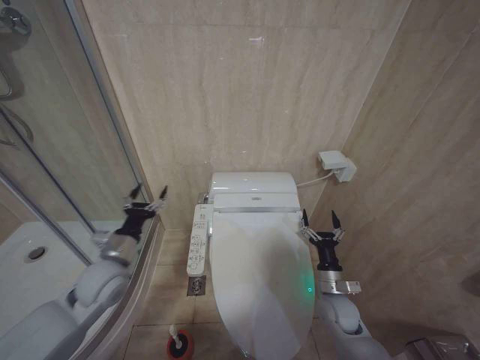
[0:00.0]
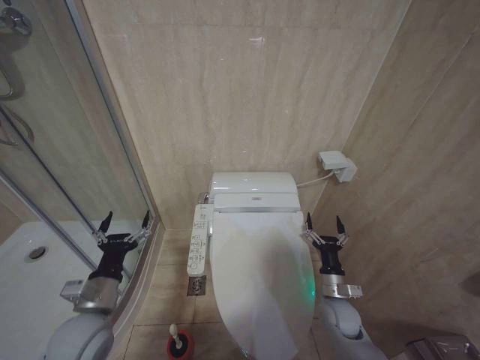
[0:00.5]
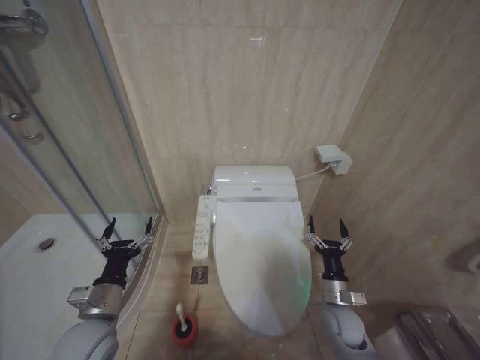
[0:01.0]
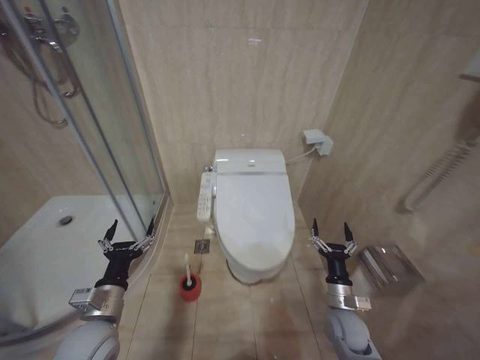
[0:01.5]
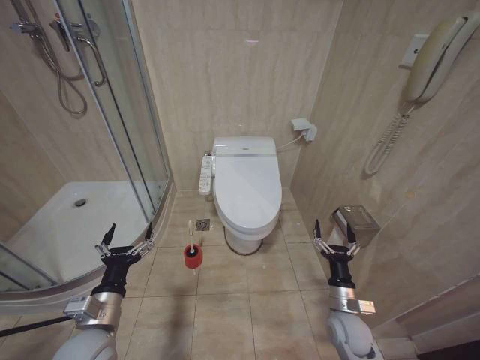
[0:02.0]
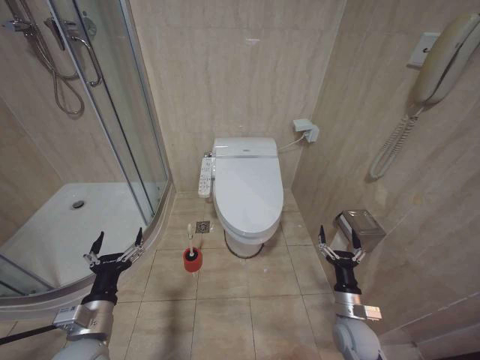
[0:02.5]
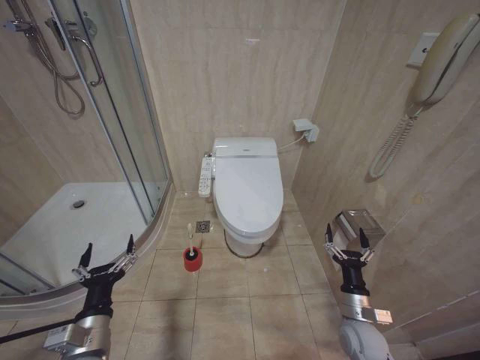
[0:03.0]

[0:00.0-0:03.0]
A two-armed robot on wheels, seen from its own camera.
Task of the whole recording: Open the toilet lid, clean the toilet bowl with a toilet brush, close the toilet lid, and flush.
0:00.0 to 0:01.5: The left gripper is displaced backward by approximately 10 cm.
0:01.5 to 0:03.0: The left gripper changes place by about 5 cm.

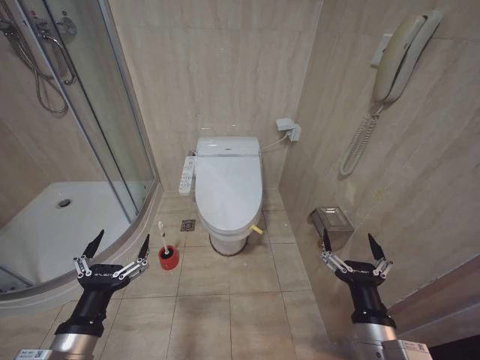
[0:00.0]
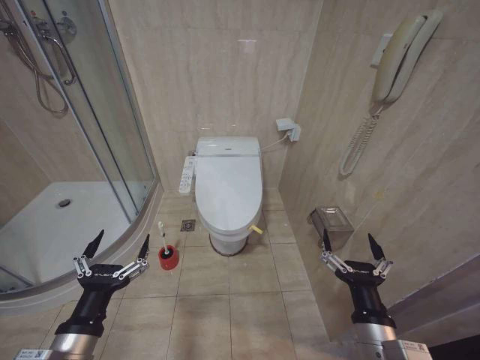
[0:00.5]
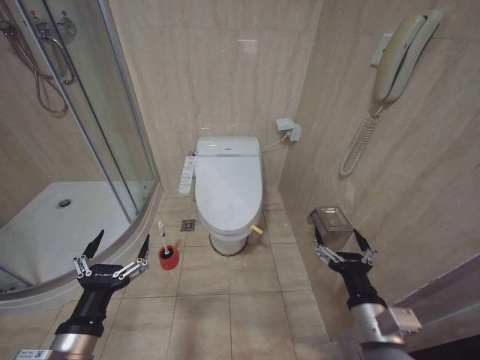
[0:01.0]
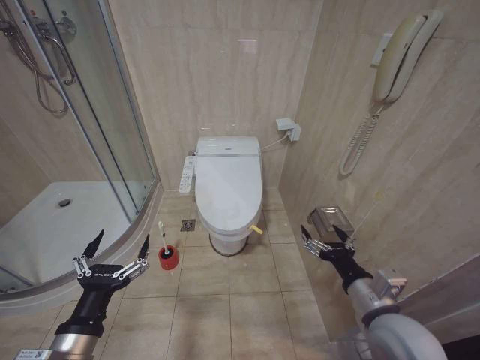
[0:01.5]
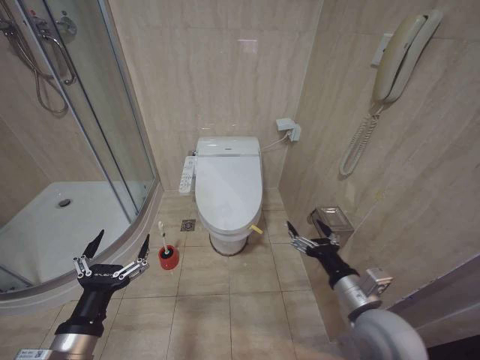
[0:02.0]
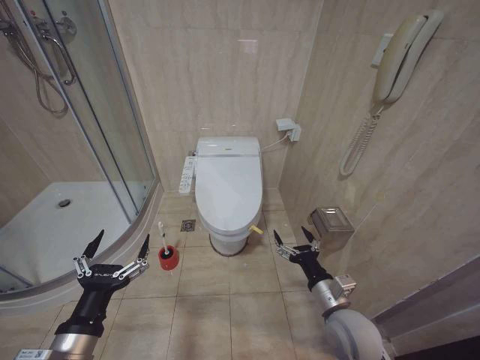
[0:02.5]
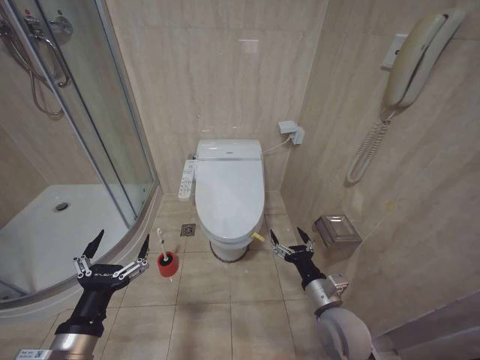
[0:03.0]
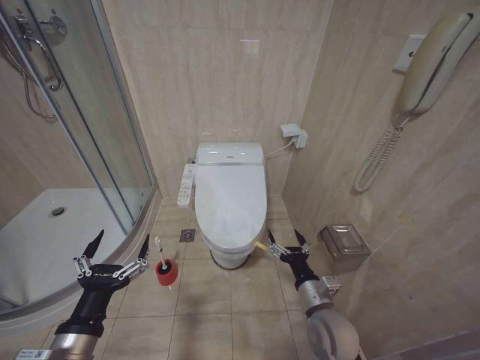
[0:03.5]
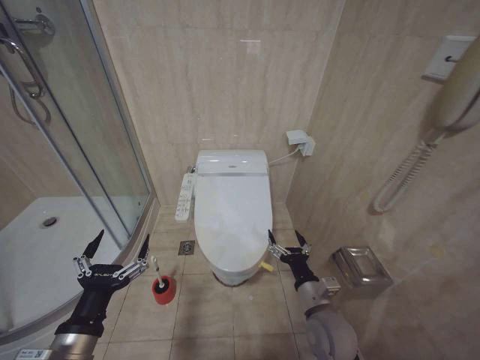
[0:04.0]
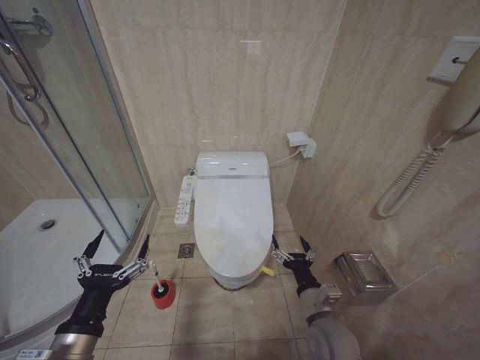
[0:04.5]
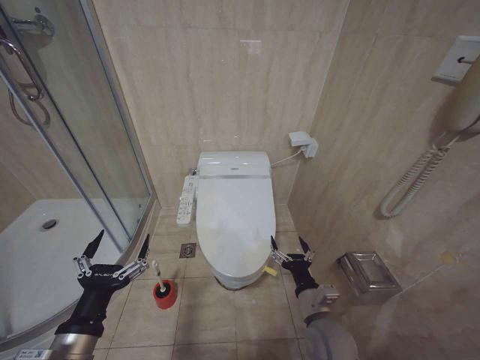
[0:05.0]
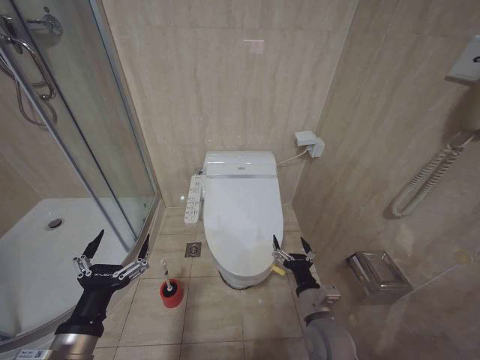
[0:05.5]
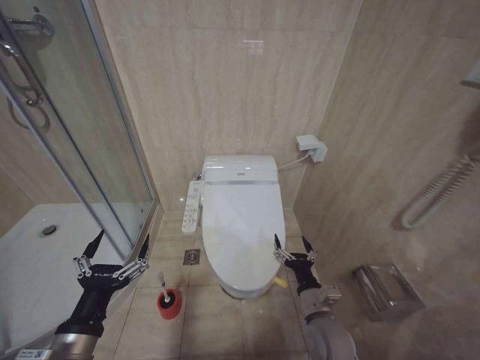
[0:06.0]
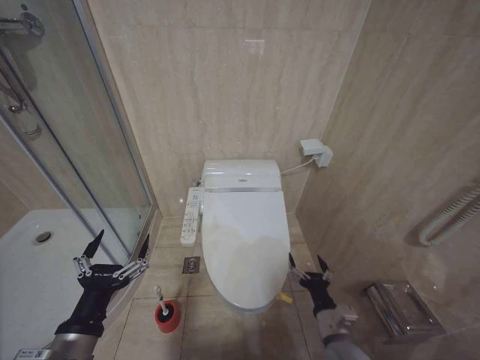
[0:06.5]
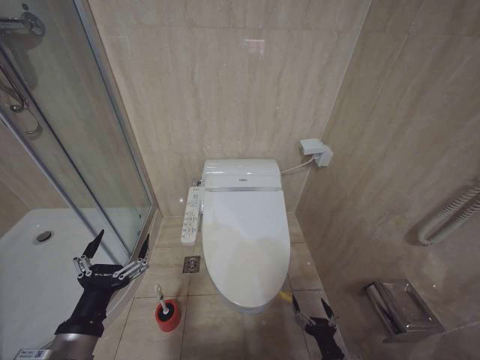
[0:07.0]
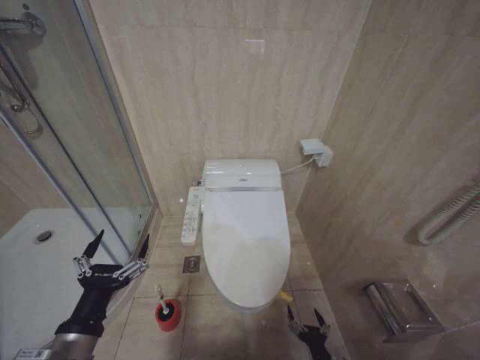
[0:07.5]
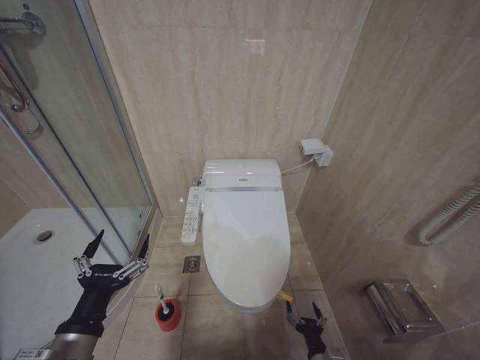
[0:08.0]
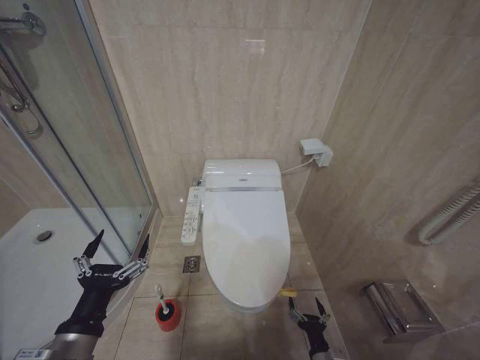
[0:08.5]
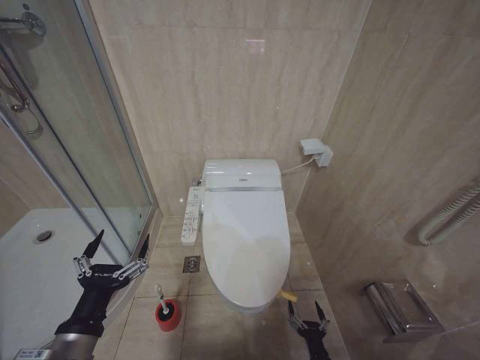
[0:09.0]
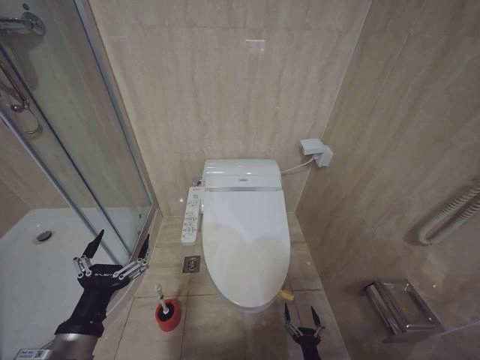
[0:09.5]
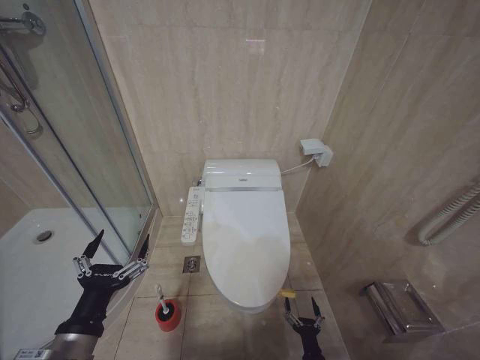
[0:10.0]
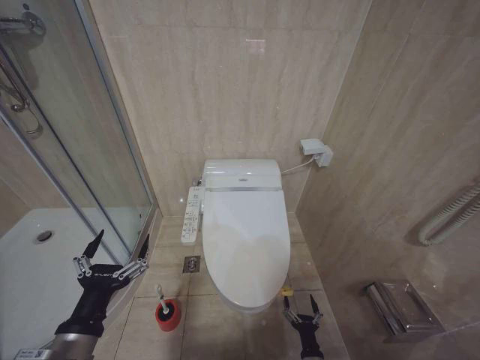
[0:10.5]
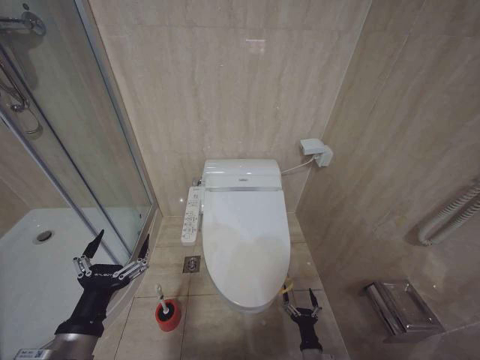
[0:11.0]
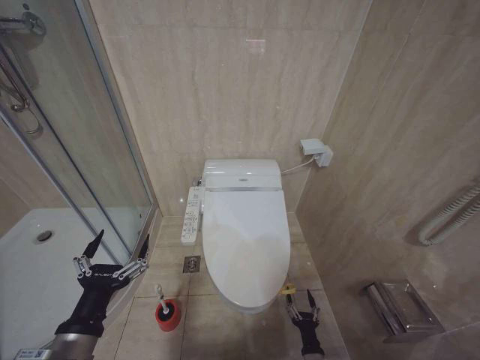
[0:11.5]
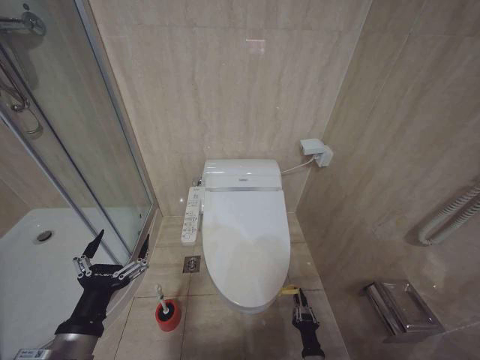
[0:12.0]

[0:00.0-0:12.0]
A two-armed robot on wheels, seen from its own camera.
Task of the whole recording: Open the toilet lid, clean the toilet bowl with a toilet brush, close the toilet lid, and flush.
0:02.0 to 0:04.0: The right gripper moves downward and to the left, about 10 cm.
0:04.0 to 0:06.0: The grippers move only a little.
0:06.0 to 0:08.0: The right gripper moves downward and backward, about 20 cm.

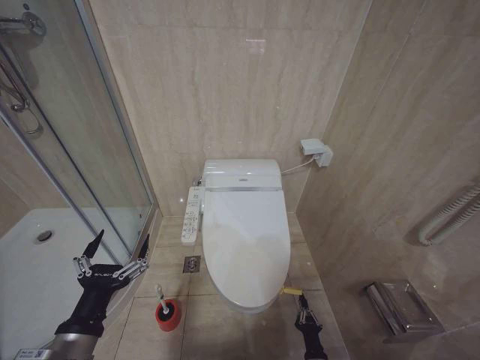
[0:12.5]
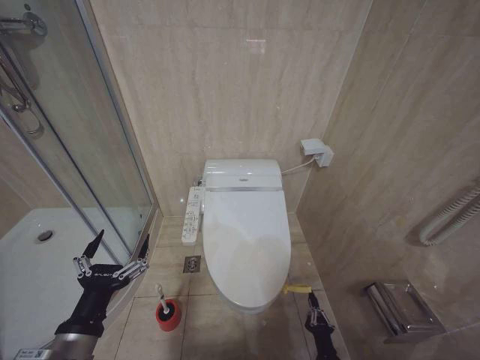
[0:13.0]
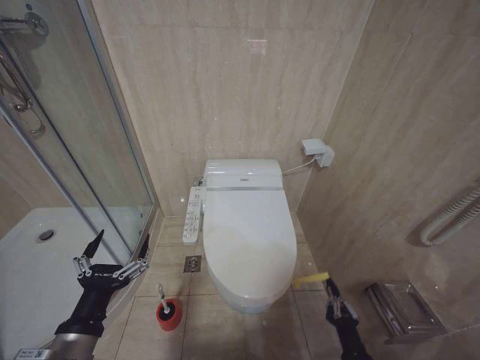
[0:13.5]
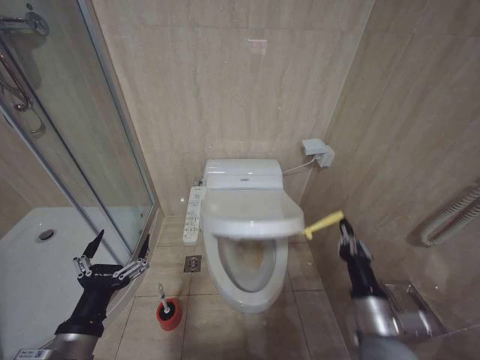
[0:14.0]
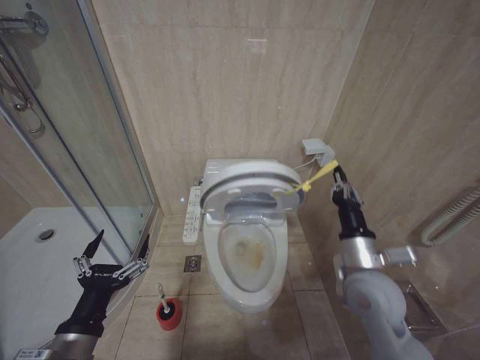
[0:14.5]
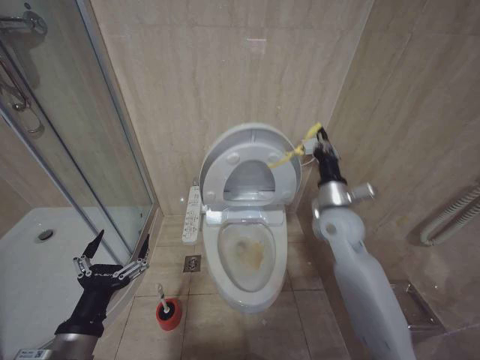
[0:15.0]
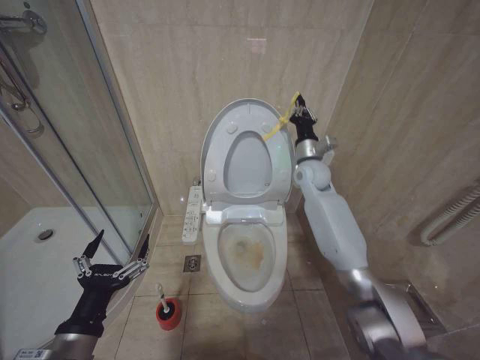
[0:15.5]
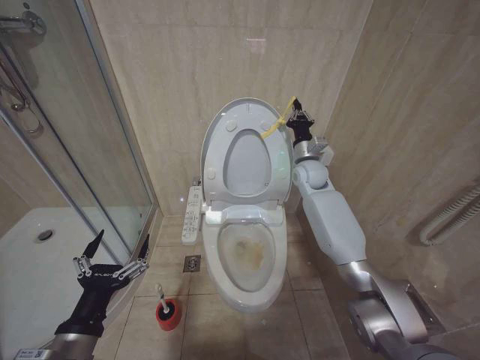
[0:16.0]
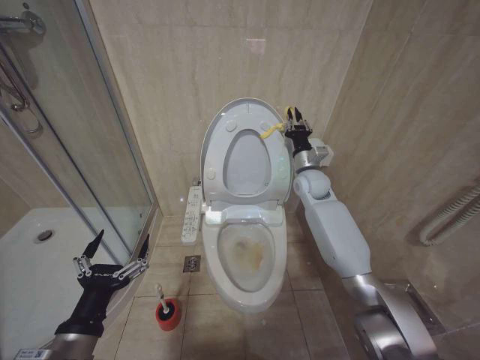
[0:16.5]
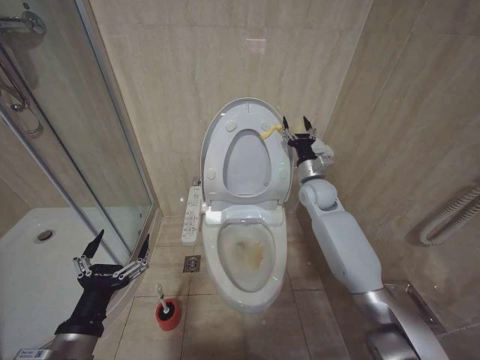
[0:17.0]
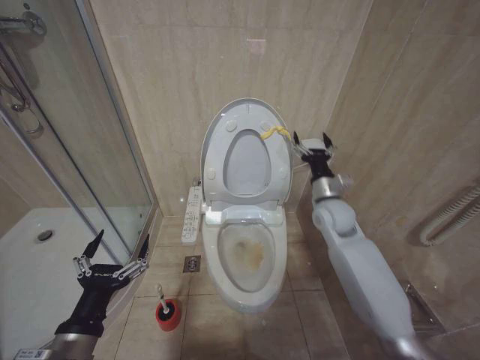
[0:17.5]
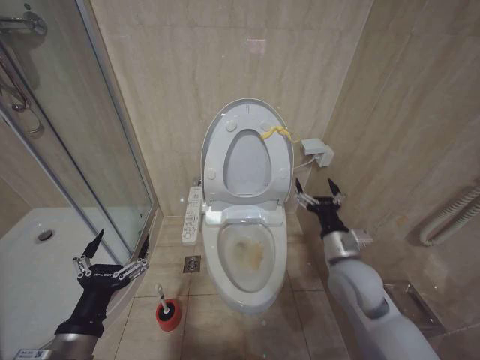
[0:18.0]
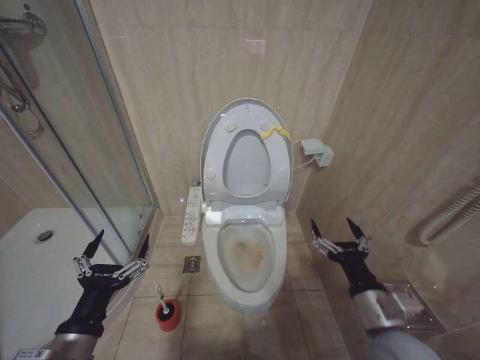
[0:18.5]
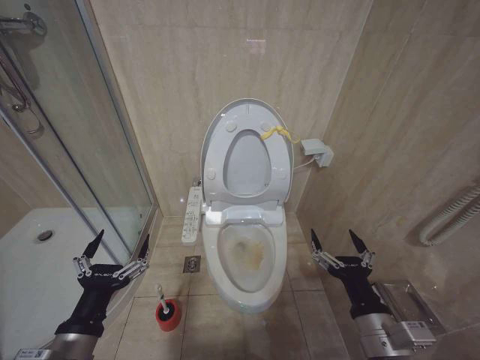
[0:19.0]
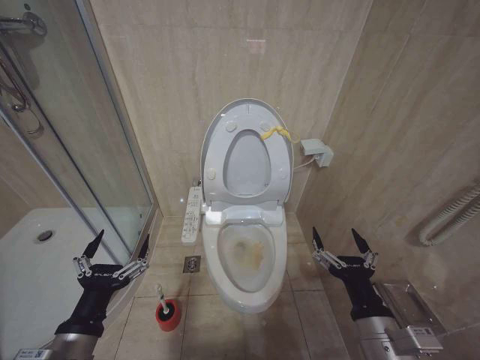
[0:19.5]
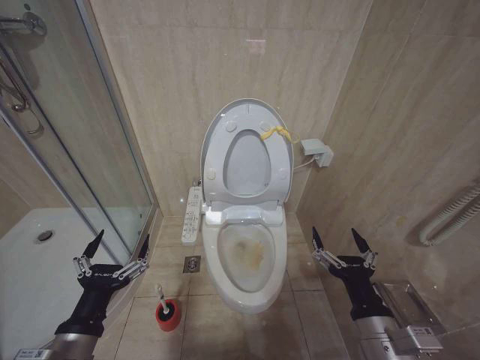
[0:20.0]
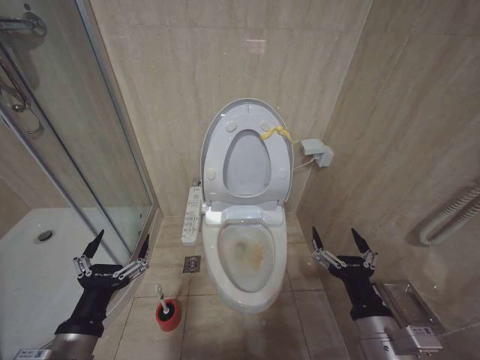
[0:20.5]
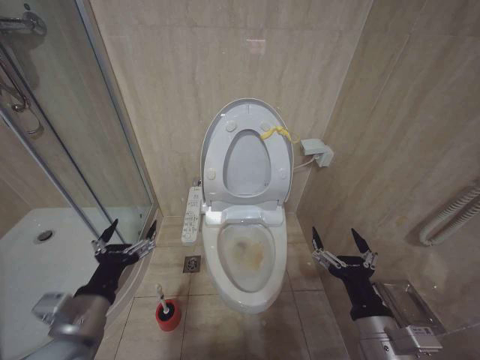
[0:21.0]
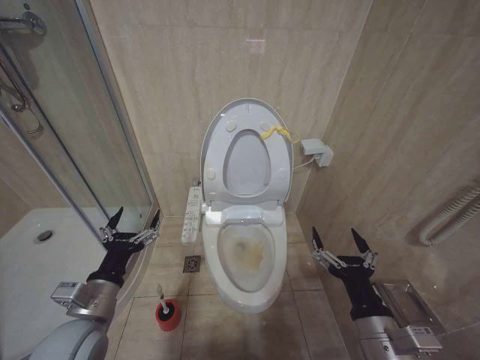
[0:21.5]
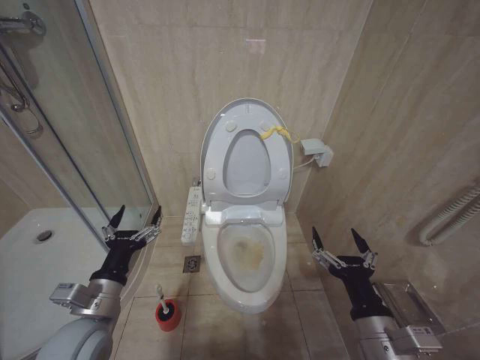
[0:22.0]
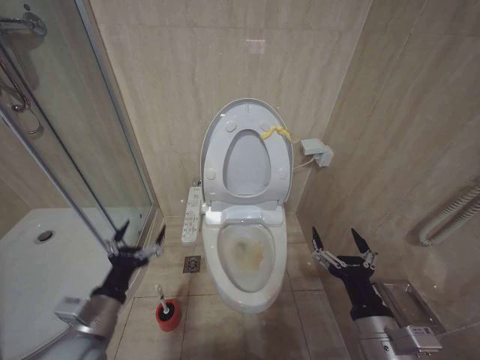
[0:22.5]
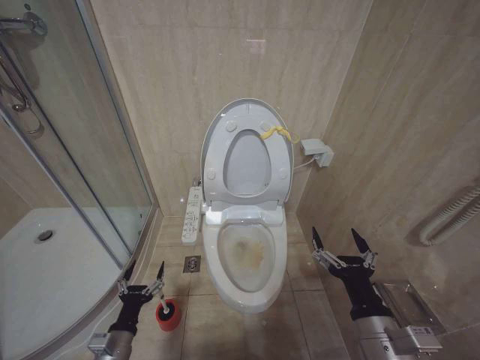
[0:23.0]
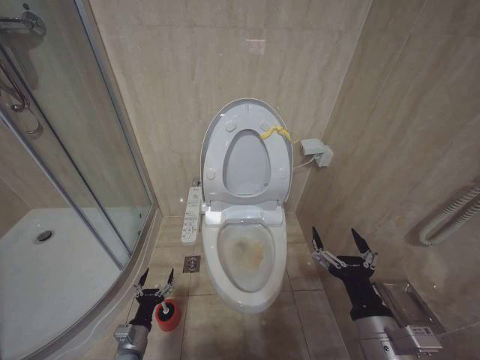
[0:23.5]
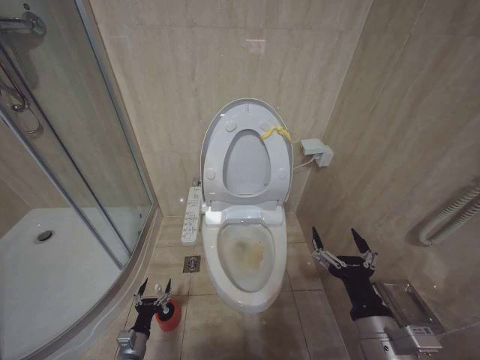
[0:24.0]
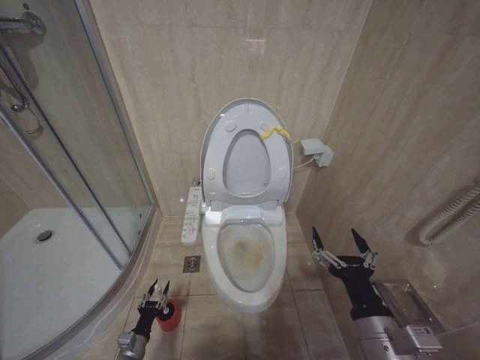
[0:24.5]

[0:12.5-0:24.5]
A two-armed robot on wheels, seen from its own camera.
Task of the whole recording: Open the toilet lid, clean the toilet bowl with a toilet brush, close the toilet lid, and flush.
0:12.5 to 0:14.5: The right gripper travels upward by roughly 40 cm.
0:14.5 to 0:16.5: The right gripper is displaced forward by approximately 30 cm.
0:16.5 to 0:18.5: The right gripper is displaced backward by approximately 35 cm, and opens its fingers.
0:18.5 to 0:20.5: The right gripper shifts about 5 cm backward.
0:20.5 to 0:22.5: The left gripper heads forward, covering about 5 cm.
0:22.5 to 0:24.5: The left gripper shifts some 35 cm downward.
